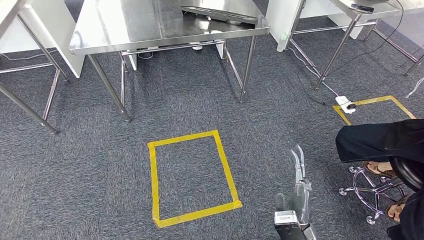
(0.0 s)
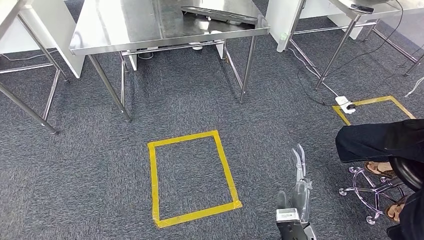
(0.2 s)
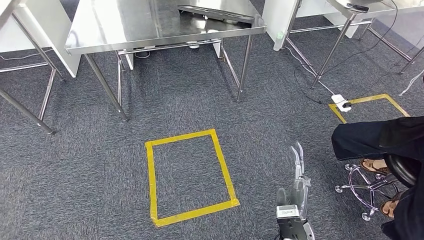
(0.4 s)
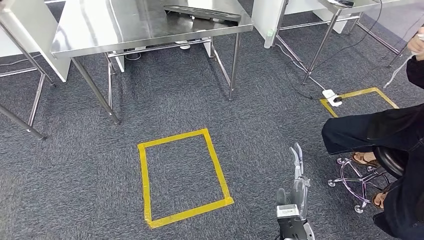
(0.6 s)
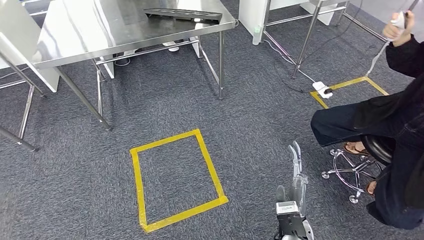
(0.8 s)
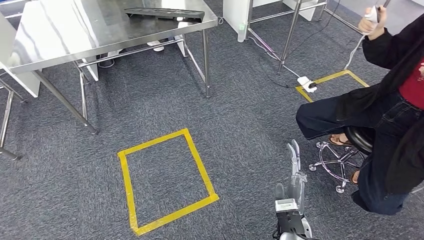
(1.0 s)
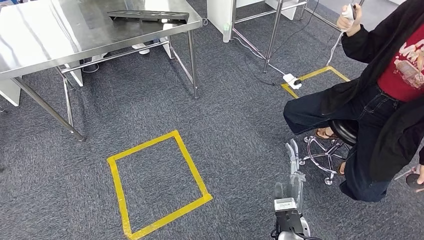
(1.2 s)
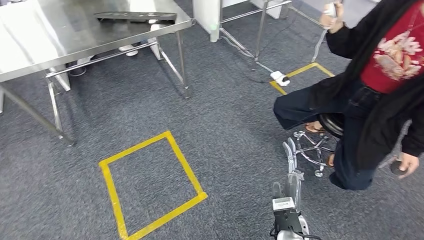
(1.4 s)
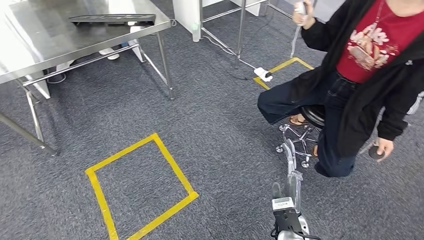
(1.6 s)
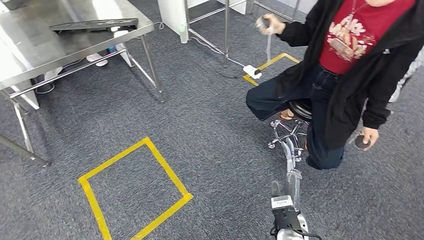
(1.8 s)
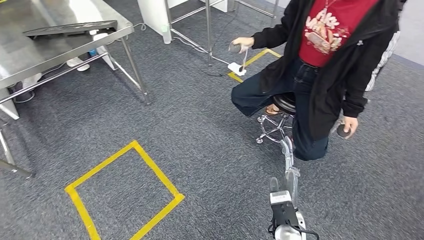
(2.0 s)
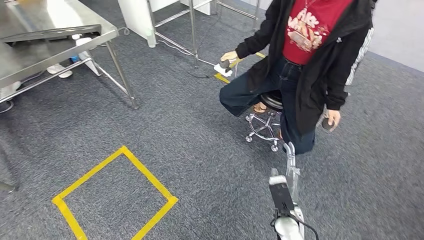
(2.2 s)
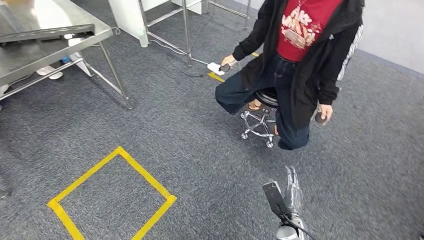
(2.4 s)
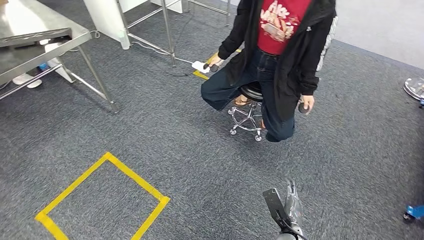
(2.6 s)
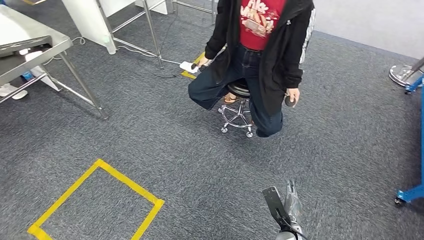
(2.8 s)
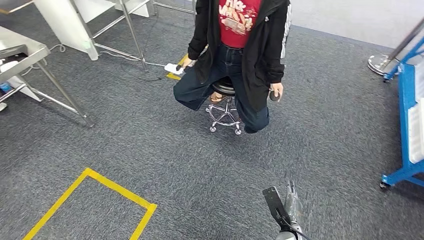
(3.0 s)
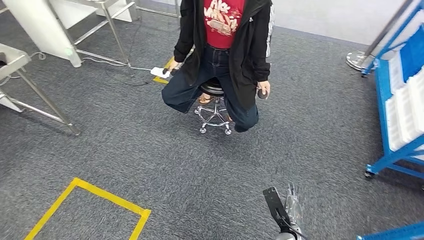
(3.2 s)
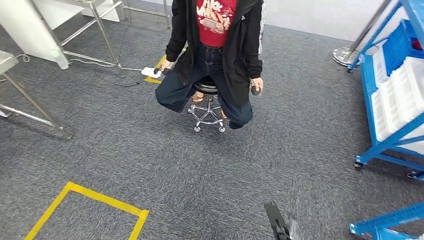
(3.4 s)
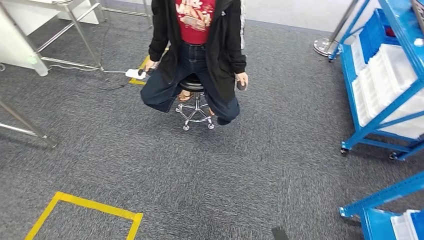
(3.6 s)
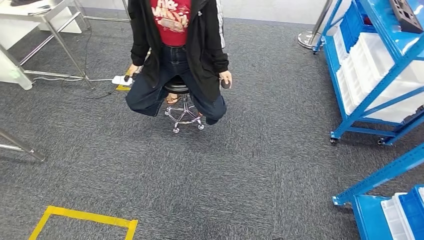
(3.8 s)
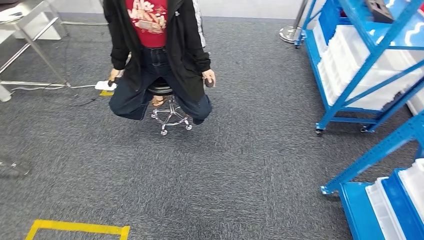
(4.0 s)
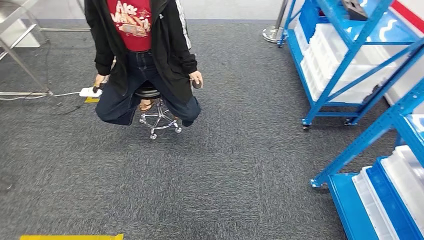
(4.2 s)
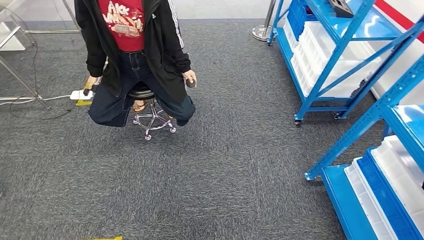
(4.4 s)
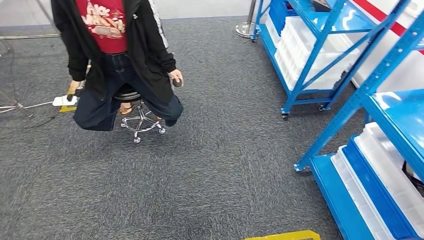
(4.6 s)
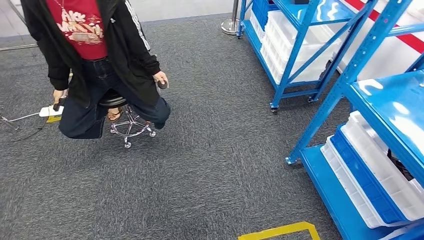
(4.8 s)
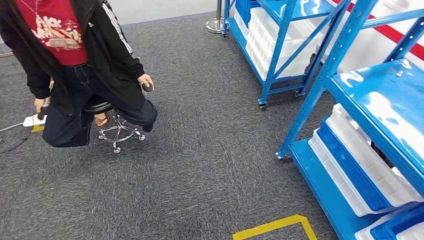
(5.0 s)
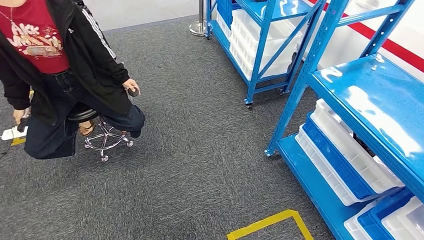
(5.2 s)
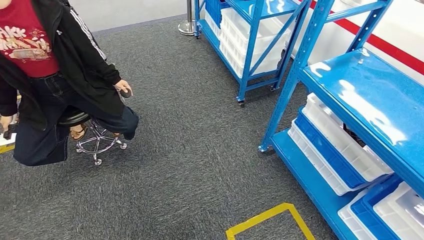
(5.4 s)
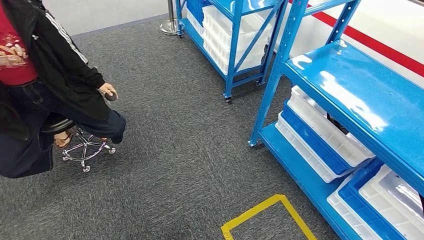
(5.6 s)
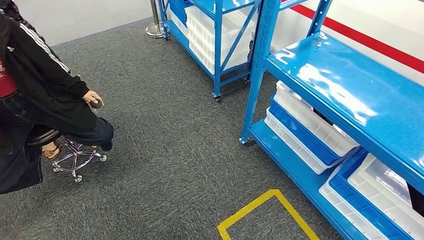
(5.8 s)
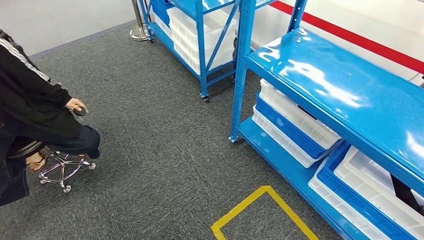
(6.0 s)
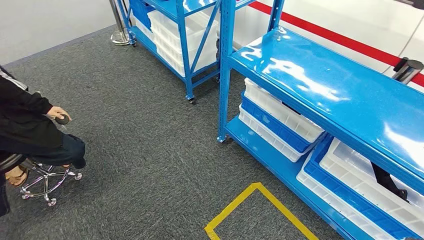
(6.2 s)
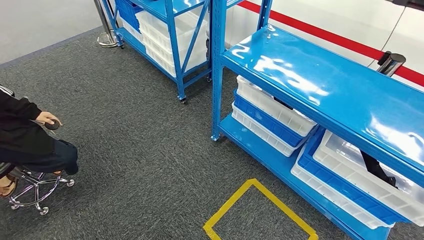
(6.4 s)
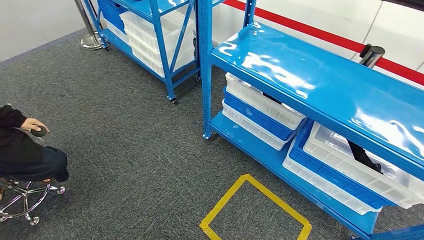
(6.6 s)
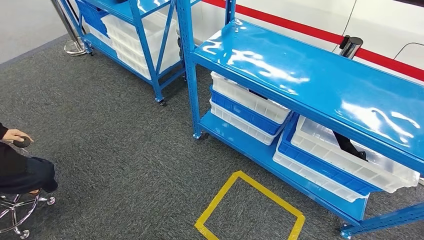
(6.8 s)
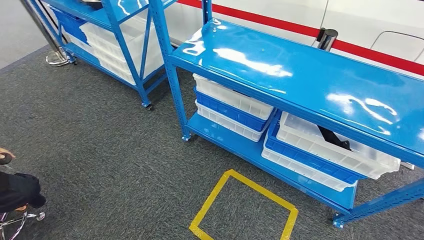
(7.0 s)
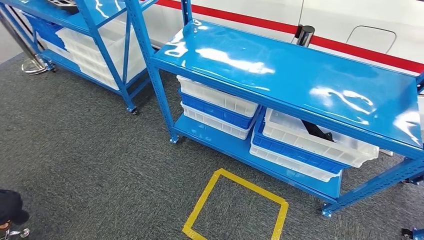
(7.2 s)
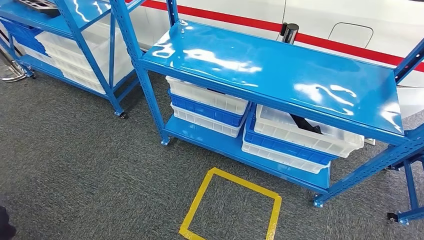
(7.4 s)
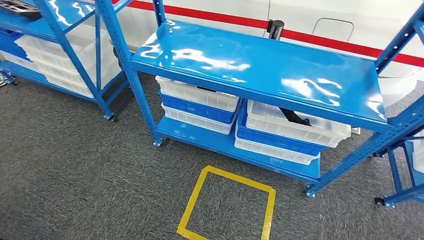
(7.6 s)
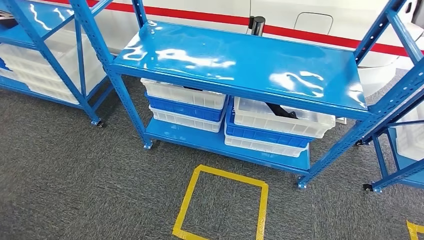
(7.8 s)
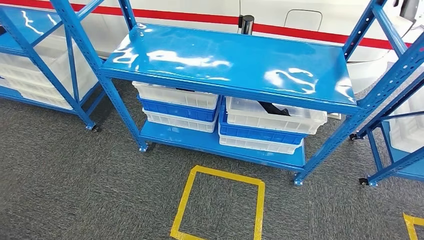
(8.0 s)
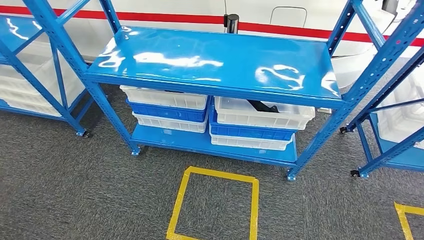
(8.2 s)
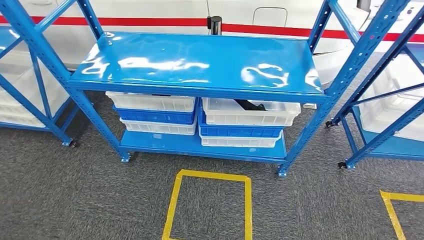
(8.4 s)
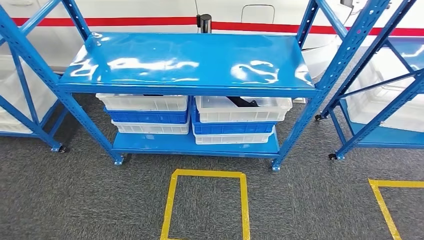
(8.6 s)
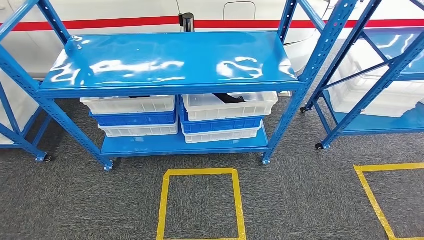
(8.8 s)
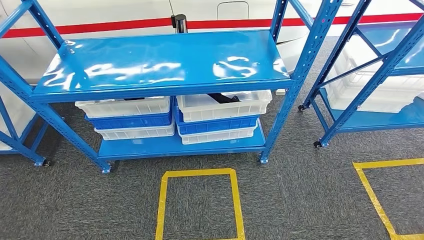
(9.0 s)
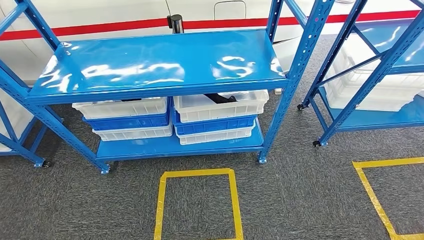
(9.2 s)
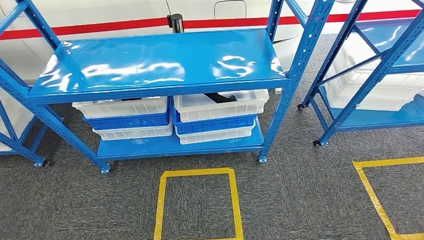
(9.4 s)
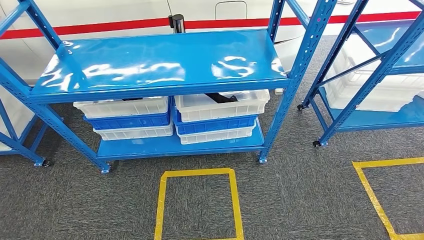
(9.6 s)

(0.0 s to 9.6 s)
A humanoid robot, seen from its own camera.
Step, 0.0 s - 9.6 s: Move to the initial position of the shelf.
